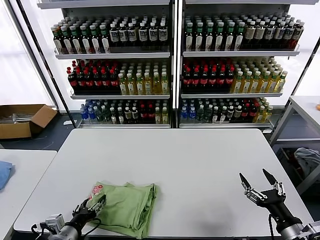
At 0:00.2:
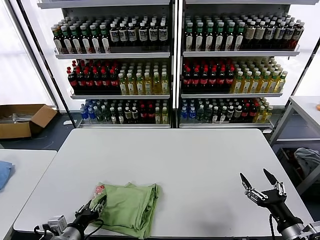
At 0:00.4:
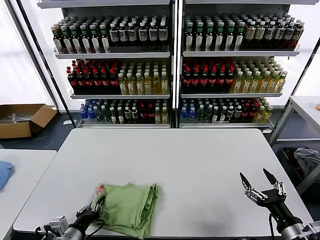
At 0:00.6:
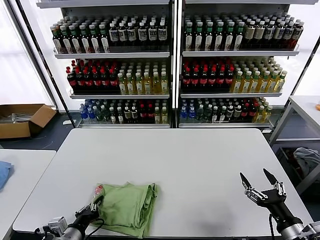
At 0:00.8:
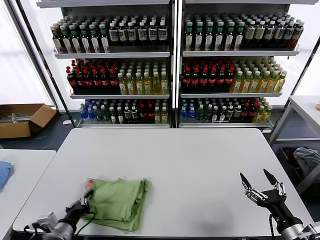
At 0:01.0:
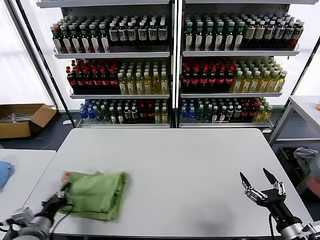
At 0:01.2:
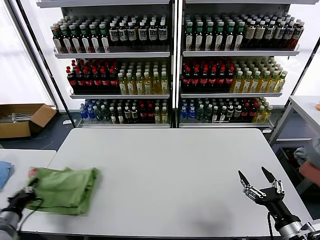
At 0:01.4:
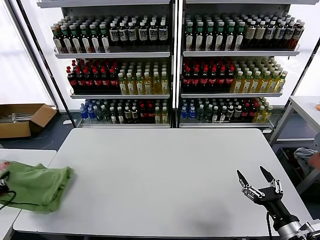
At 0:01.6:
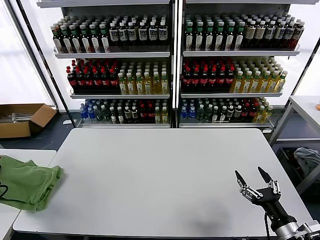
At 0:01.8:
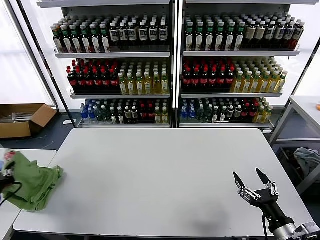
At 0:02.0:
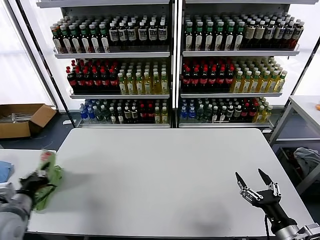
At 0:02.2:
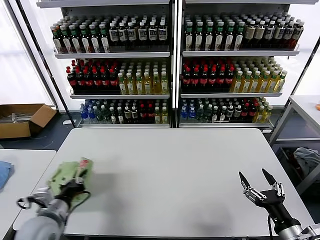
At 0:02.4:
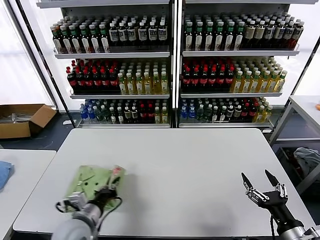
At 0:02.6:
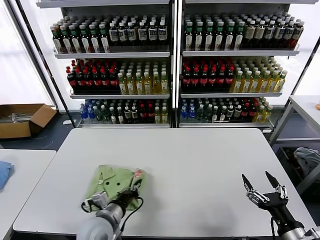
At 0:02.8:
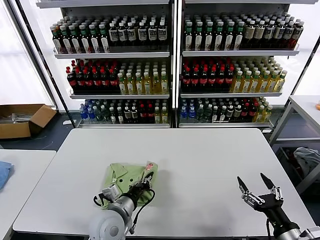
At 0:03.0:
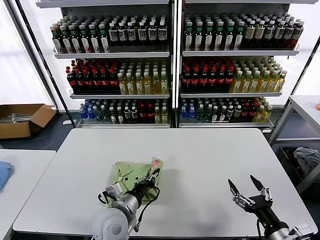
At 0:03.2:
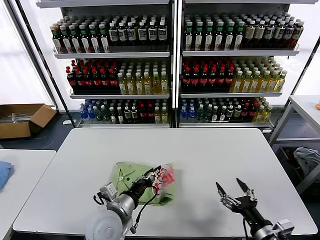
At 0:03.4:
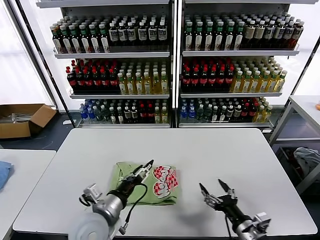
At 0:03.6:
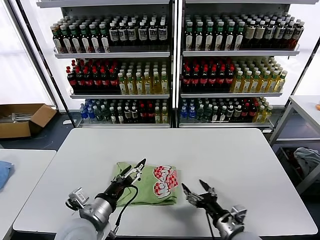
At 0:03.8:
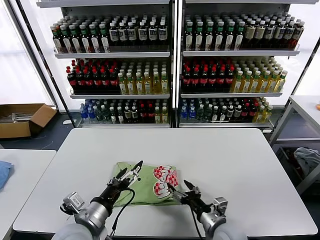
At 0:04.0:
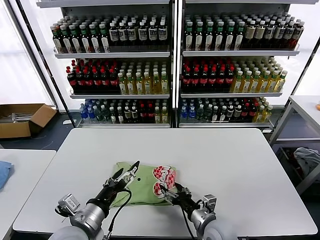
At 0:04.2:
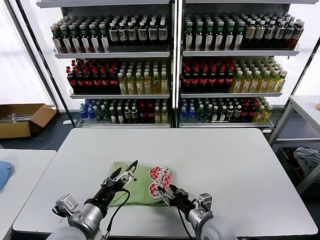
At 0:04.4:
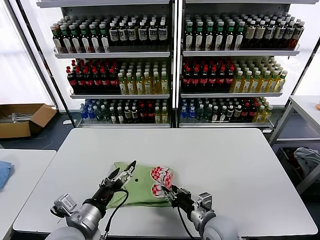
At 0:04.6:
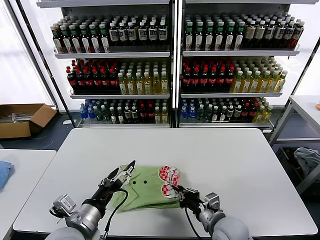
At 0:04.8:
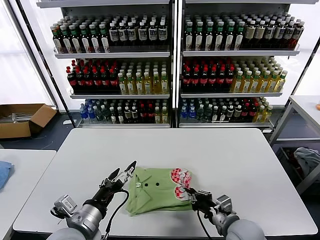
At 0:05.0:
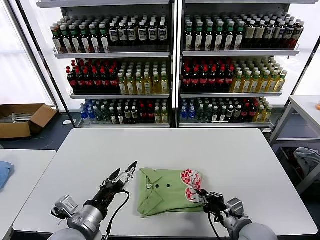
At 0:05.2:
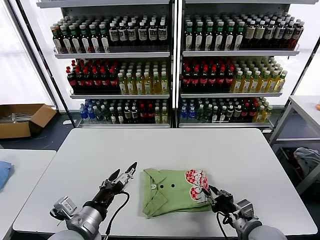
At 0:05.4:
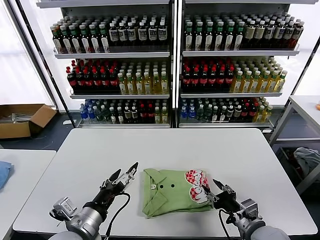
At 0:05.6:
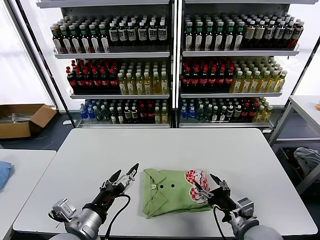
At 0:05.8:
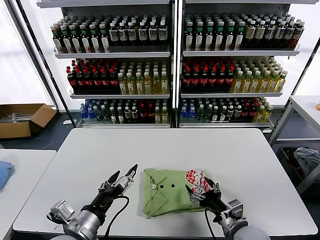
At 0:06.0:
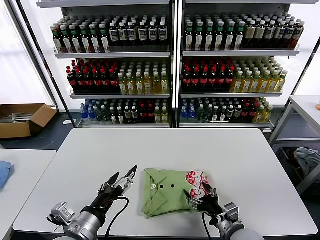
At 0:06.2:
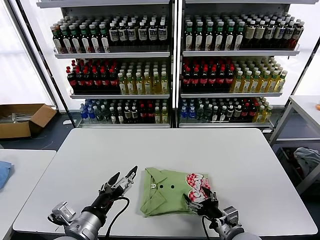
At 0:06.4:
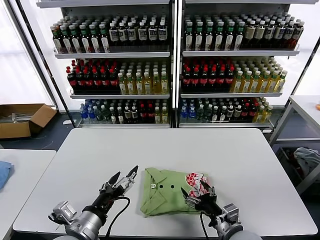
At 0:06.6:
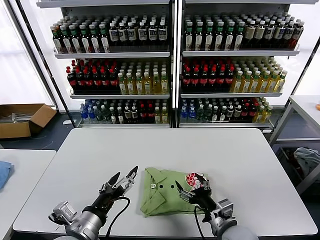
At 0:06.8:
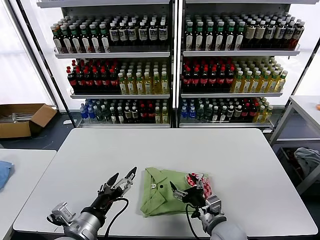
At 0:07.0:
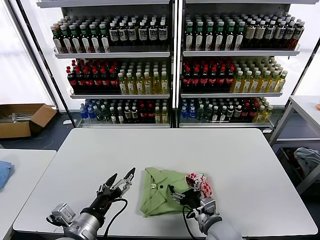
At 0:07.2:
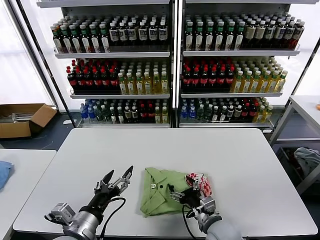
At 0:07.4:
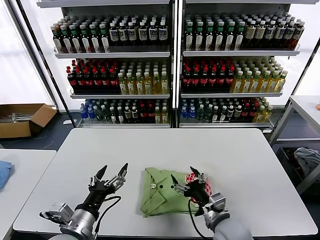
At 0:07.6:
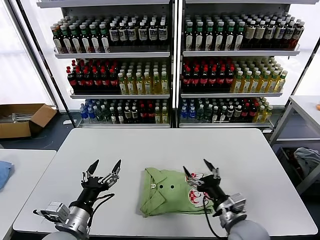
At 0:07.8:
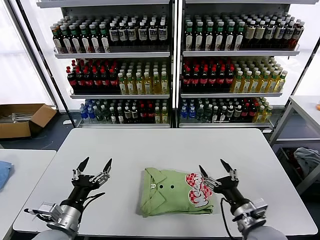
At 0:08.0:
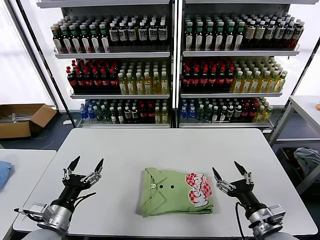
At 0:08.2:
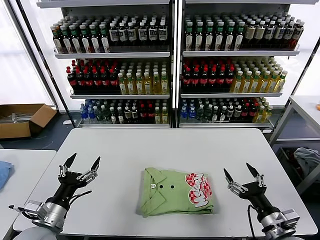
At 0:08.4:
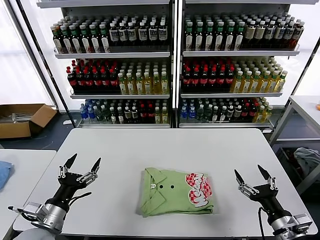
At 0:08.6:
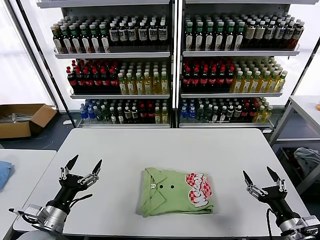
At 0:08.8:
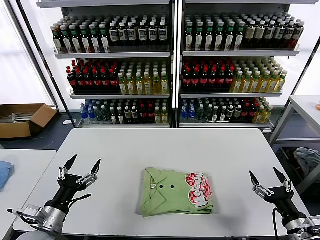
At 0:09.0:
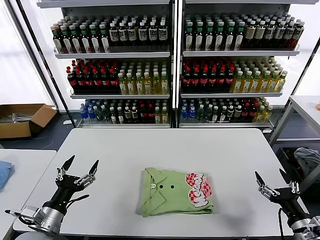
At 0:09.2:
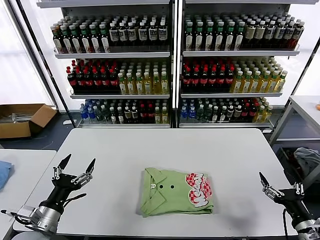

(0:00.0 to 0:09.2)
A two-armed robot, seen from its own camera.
Task of the whole recording: fold and organize the clothes.
Step, 0:00.0 - 0:03.2: Flip the folded clothes over with left gripper.
Step, 0:03.4 - 0:07.2: Drag the clothes to the center of the table.
0:00.0 - 0:01.6: The left gripper heads to the left and upward, covering about 25 cm, and closes.
0:01.6 - 0:03.0: The left gripper travels to the right by about 40 cm.
0:03.0 - 0:04.6: The right gripper travels to the left and forward by about 20 cm, and closes. Meanwhile the left gripper shifts approximately 15 cm upward, to the left and backward, and opens up.
0:04.6 - 0:06.2: The right gripper opens.
0:06.2 - 0:07.6: The right gripper is displaced upward by roughly 5 cm.
0:07.6 - 0:09.2: The right gripper heads to the right, covering approximately 20 cm; the left gripper goes roughly 10 cm to the left.

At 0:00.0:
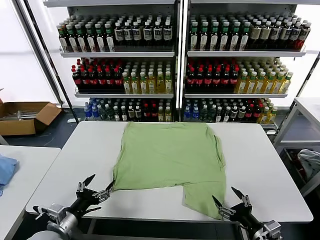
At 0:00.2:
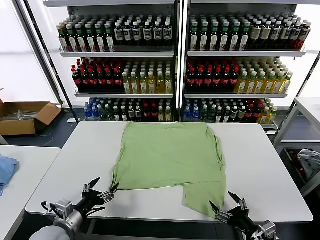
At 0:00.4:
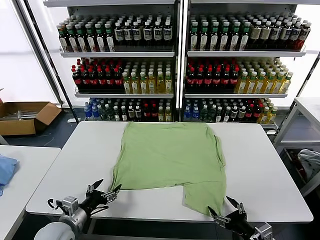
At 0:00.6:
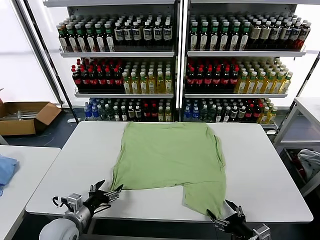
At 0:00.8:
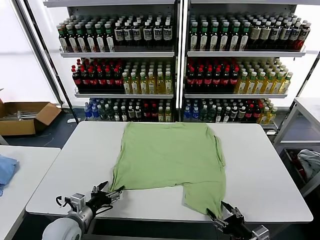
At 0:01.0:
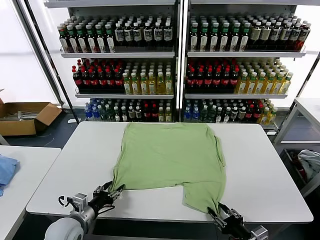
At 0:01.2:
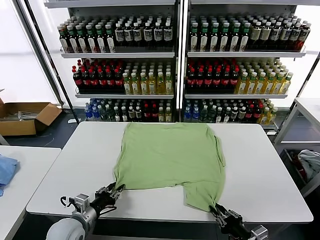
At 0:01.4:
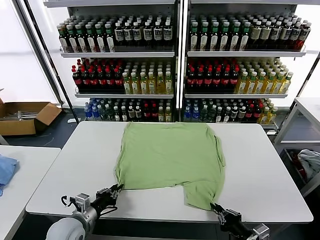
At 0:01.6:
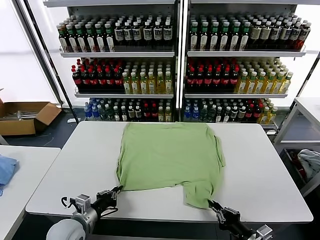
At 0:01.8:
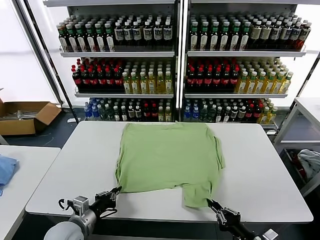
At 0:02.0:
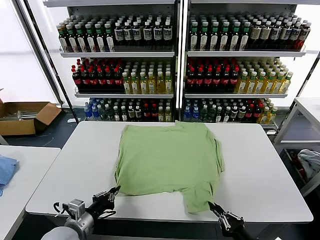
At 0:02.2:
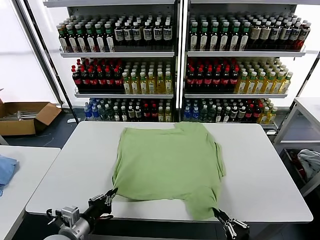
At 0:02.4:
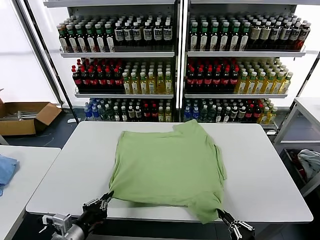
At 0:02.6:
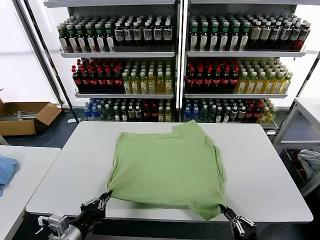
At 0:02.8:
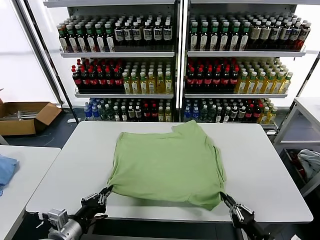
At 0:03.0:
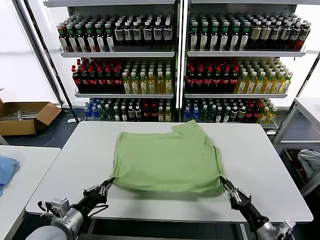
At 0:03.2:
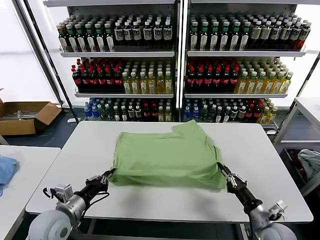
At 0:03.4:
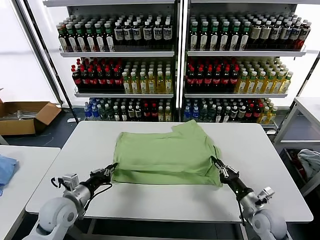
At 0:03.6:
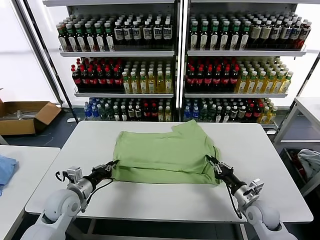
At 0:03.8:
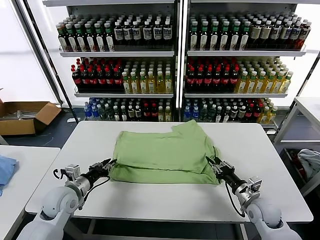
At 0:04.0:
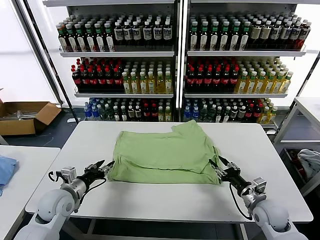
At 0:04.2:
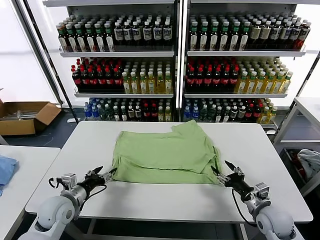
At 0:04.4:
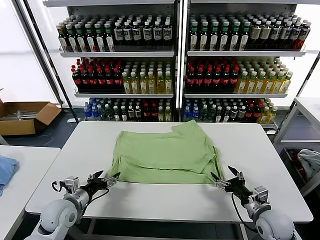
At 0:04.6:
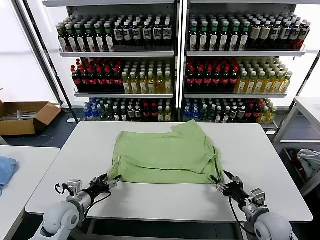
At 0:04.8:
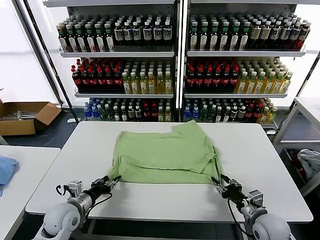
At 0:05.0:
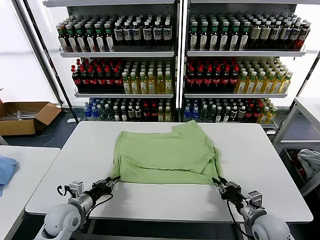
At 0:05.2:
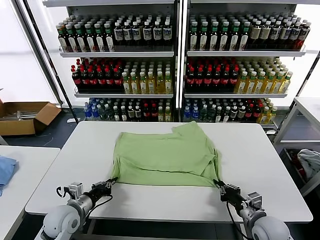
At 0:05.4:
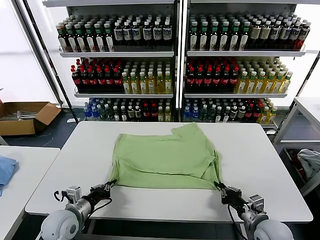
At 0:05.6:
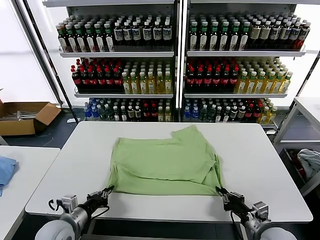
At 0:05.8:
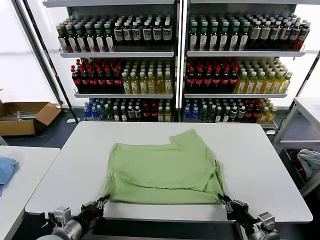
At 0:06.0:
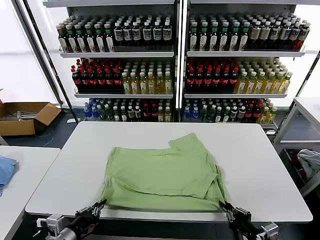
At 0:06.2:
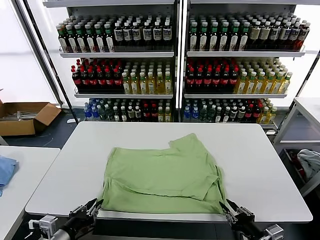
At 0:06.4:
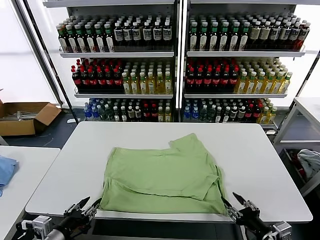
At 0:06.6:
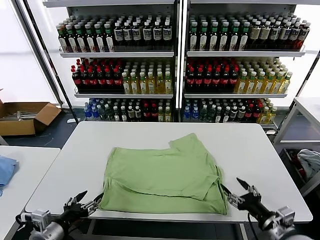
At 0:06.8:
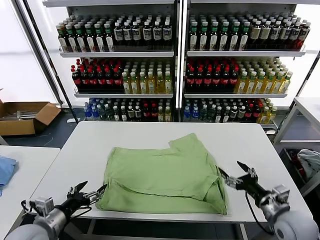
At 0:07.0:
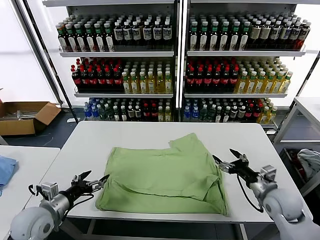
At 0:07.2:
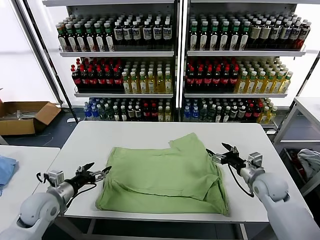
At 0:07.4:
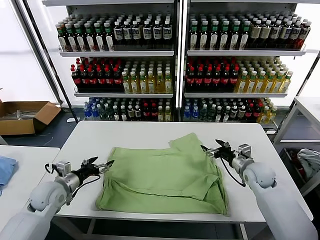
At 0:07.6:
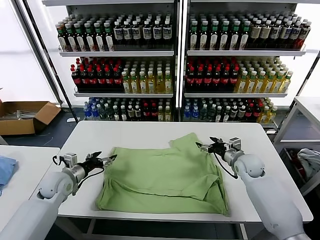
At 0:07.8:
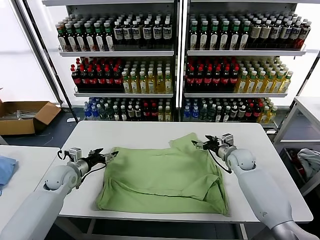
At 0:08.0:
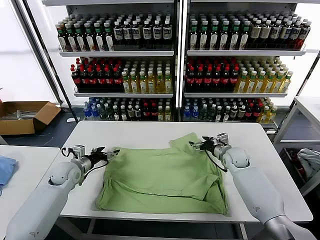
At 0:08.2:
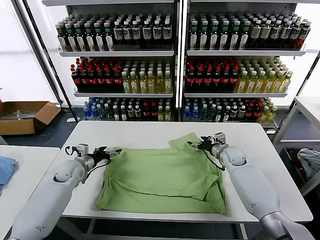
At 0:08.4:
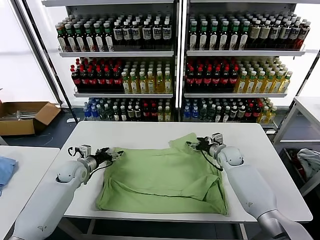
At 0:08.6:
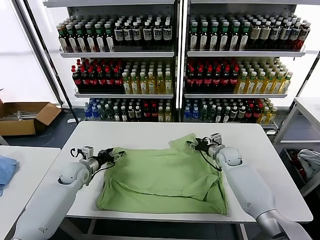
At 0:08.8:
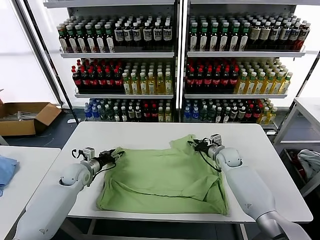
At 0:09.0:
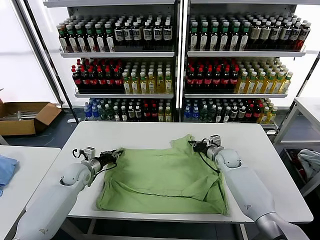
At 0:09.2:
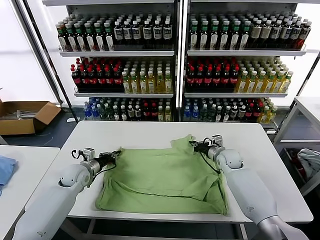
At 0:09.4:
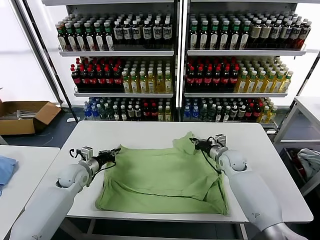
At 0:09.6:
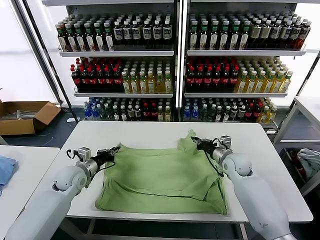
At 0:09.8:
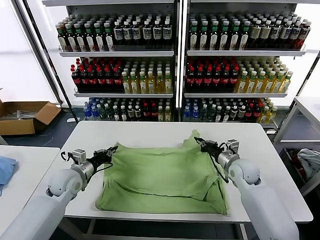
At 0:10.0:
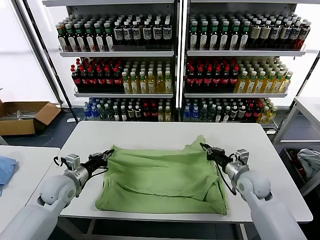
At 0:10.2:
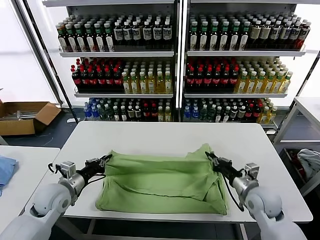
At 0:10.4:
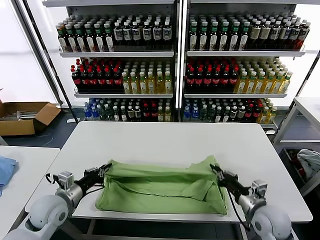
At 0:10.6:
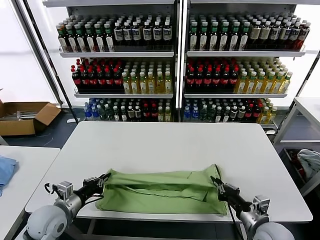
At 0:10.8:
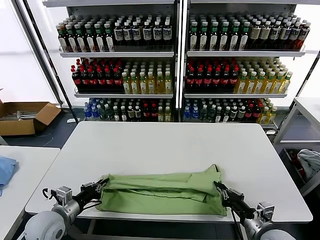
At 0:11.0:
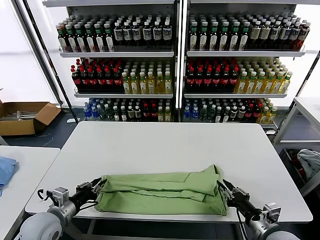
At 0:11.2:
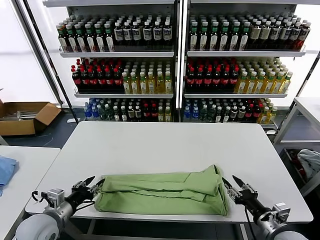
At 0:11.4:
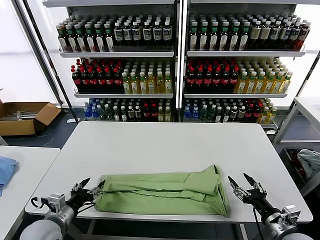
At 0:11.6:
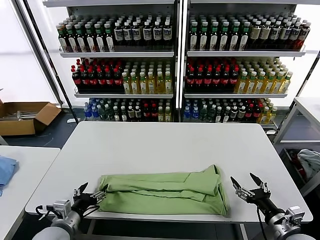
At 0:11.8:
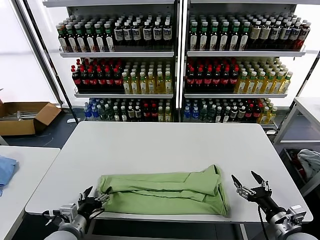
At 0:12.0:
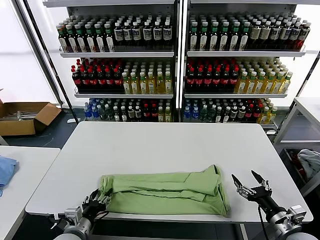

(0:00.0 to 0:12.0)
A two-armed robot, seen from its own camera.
Task of the whole recording: fold and organize the clothes.
Step, 0:00.0 - 0:01.4: use both grippers simultaneously to clamp the lower edge of the clothing fabric.
Step, 0:01.6 - 0:03.8: use both grippers to drag the lower edge of the fabric forward and fold it over the upper edge.
Step, 0:04.2 - 0:06.2: Drag the clothes downward with both gripper.
Step, 0:06.4 - 0:09.0: use both grippers simultaneously to clamp the upper edge of the clothing fabric.
Step, 0:09.4 - 0:11.0: use both grippers to drag the upper edge of the fabric backward and fold it over the lower edge.
0:01.6 - 0:03.0: The left gripper moves upward, some 5 cm; the right gripper travels backward and back again, roughly 5 cm each way.
0:03.0 - 0:04.4: The right gripper is displaced forward by some 10 cm, and opens up, while the left gripper goes roughly 10 cm forward and downward, and opens up.
0:04.4 - 0:06.0: The two grippers go about 10 cm backward. The right gripper closes, while the left gripper closes.
0:06.0 - 0:07.6: Both grippers move forward, roughly 25 cm. The left gripper opens its fingers. Meanwhile the right gripper opens its fingers.
0:07.6 - 0:09.0: The right gripper travels forward and to the left by roughly 10 cm, and closes up, while the left gripper shifts about 5 cm forward, and closes.
0:09.0 - 0:10.4: The left gripper shifts roughly 15 cm backward, while the right gripper is displaced backward by about 25 cm.
0:10.4 - 0:12.0: The left gripper heads backward, to the right and downward, covering roughly 15 cm, and opens. Meanwhile the right gripper travels backward and to the right by some 10 cm, and opens its fingers.
